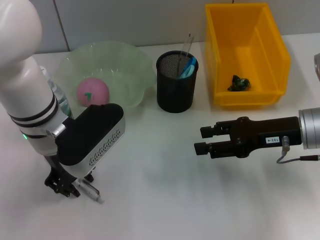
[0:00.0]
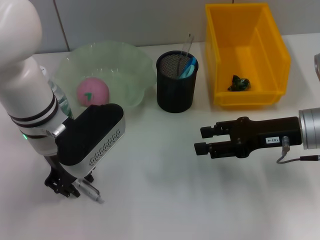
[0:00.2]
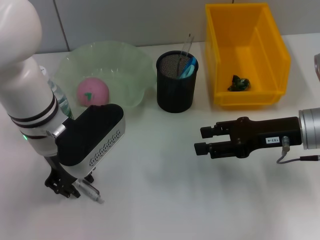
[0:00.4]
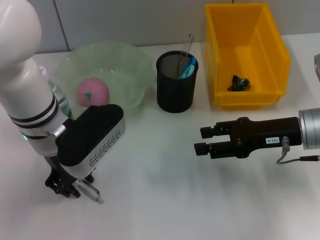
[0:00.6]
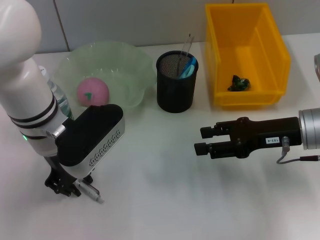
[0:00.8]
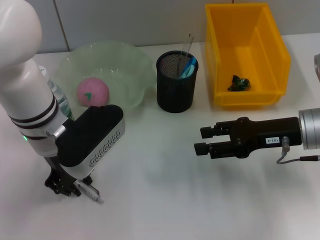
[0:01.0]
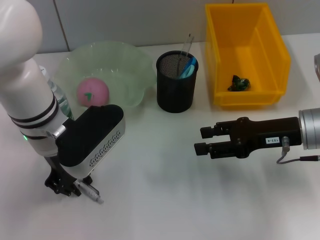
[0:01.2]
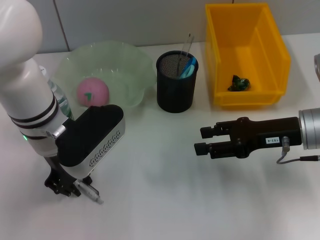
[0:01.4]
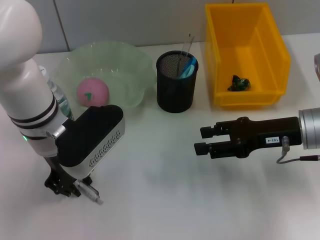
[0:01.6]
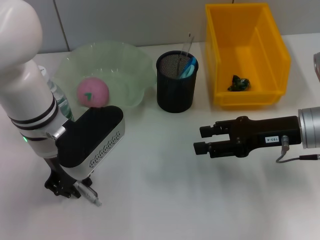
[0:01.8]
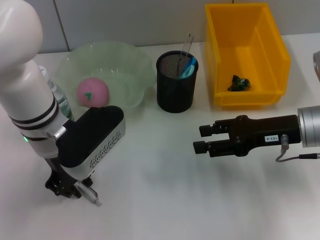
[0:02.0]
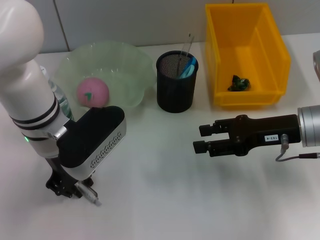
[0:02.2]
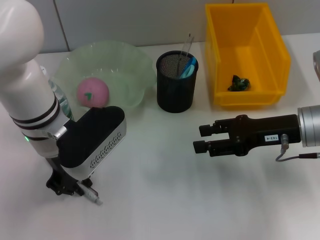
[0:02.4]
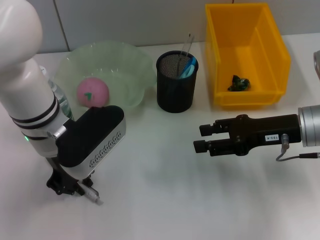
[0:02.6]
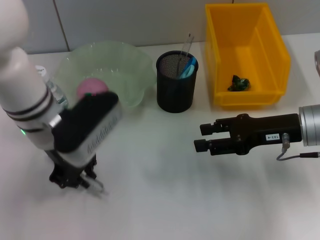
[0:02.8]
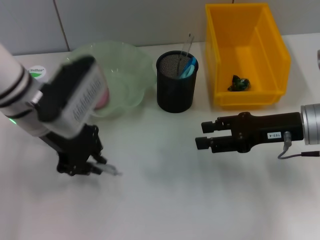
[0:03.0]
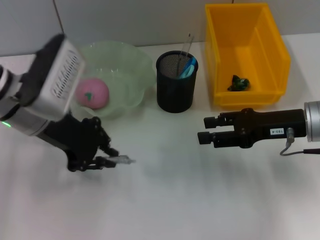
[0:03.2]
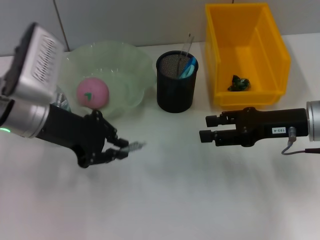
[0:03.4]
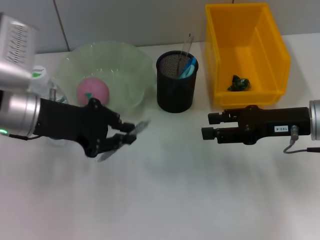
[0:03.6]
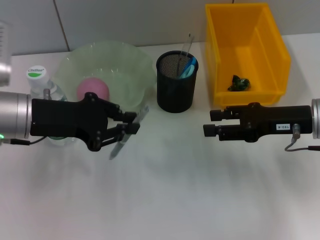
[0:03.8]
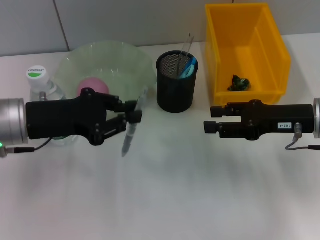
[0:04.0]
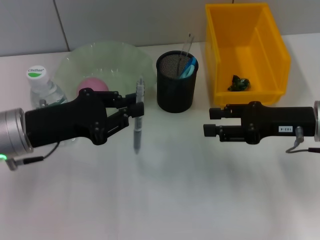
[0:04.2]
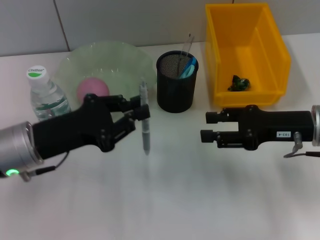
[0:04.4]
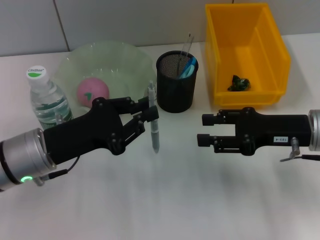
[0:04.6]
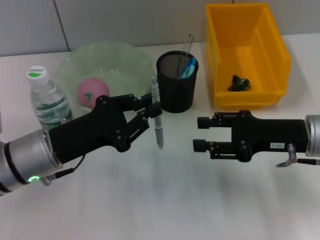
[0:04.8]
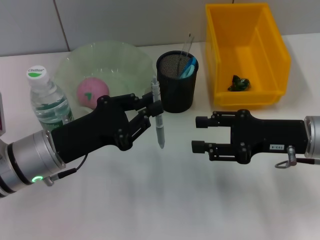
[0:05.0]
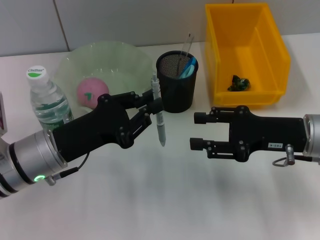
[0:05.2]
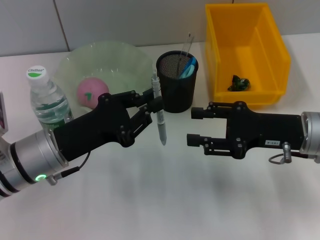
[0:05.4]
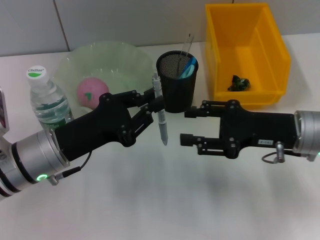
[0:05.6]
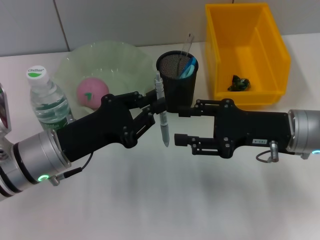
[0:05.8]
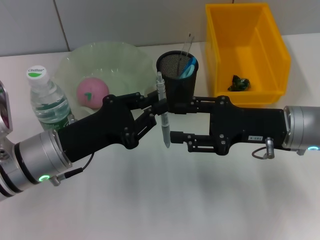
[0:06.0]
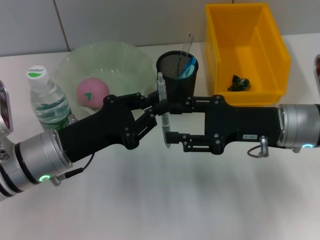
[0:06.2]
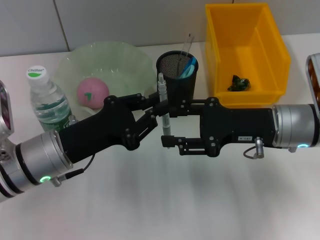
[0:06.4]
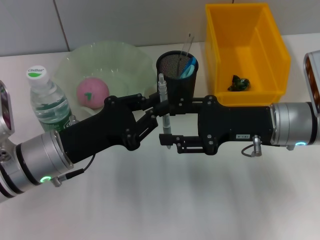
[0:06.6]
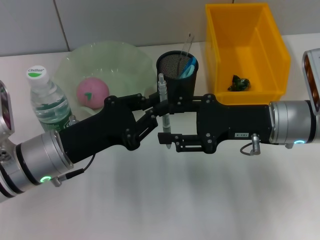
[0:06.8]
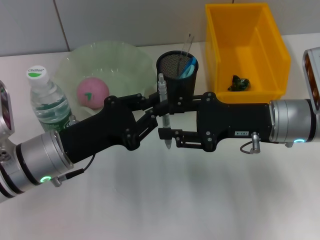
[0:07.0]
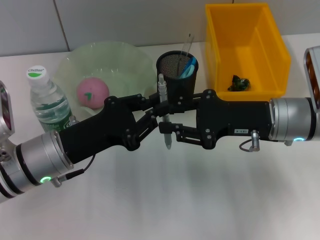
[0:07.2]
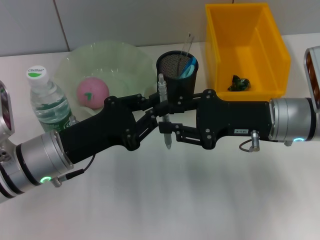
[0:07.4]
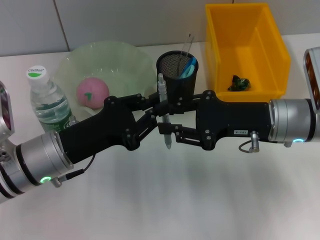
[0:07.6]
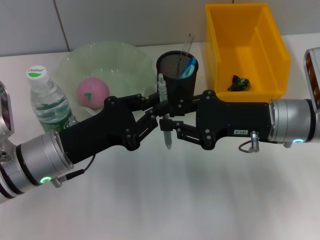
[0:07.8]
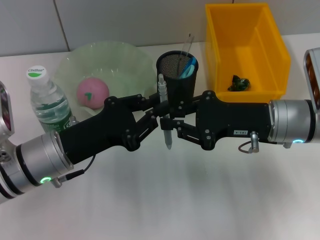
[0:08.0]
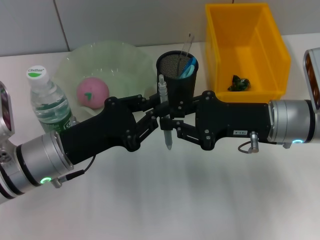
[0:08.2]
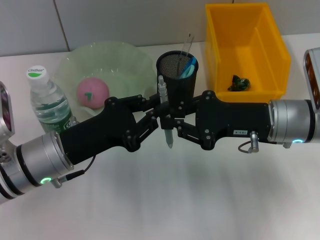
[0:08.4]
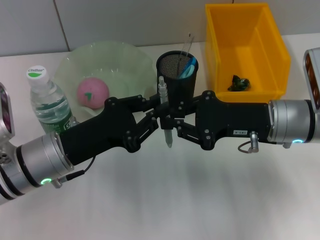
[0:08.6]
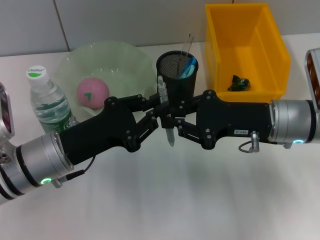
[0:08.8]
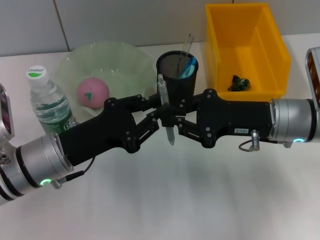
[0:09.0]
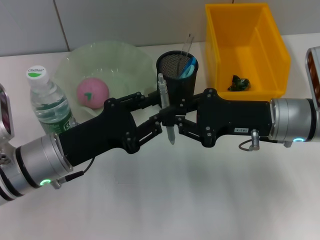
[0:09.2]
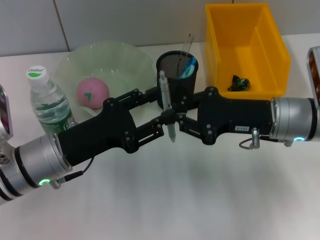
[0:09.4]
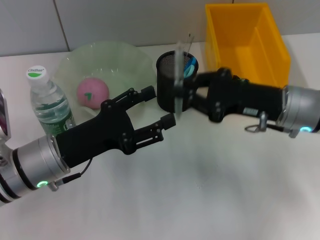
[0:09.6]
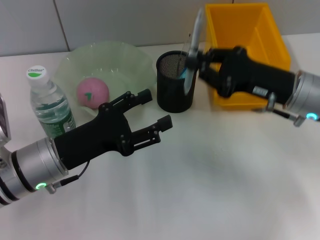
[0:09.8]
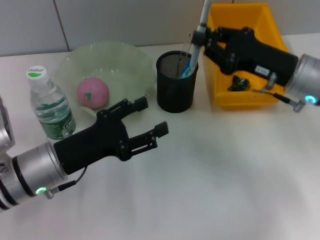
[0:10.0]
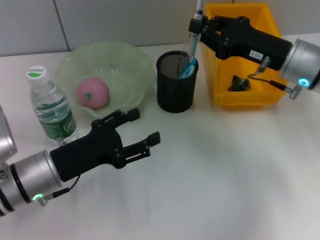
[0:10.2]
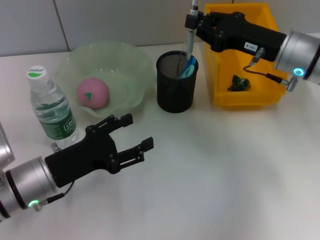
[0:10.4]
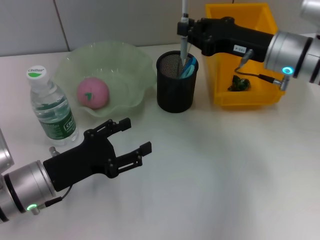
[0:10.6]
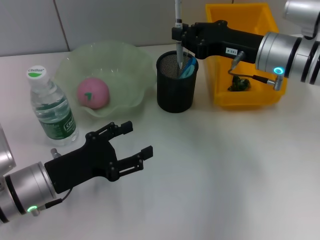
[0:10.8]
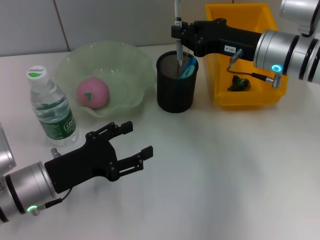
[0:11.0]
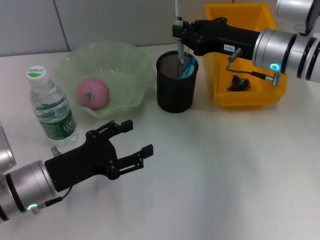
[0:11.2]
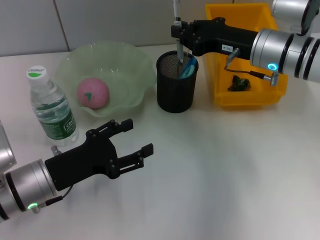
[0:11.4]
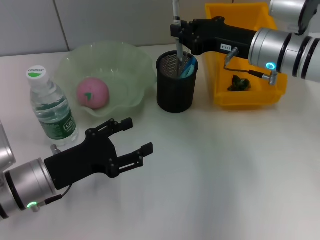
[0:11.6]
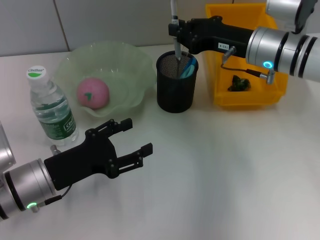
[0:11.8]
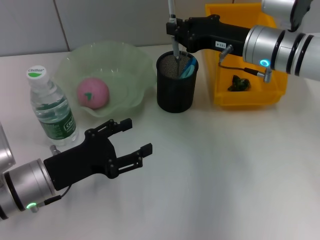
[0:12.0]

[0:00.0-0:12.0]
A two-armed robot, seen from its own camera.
Step, 0:00.0 to 0:02.6: Grab the gray spring-action pen with the left hand.
Step, 0:02.8 to 0:09.2: Pass the gray spring-action pen from the left hand to the right hand.
0:00.0 to 0:01.6: Both grippers stay about where they are.
0:03.0 to 0:04.4: The left gripper shifts approximately 10 cm backward and downward.
0:06.0 to 0:07.6: The grippers move only a little.
0:07.6 to 0:09.0: Both grippers stay about where they are.
0:09.0 to 0:10.4: The left gripper opens up. Meanwhile the right gripper heads forward, covering some 5 cm.
0:10.4 to 0:12.0: There are only small adjustments of the grippers.

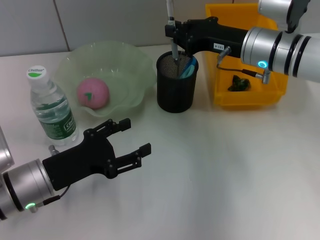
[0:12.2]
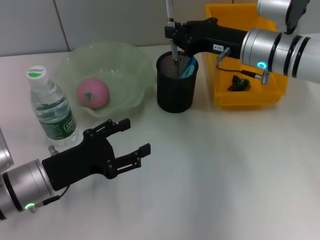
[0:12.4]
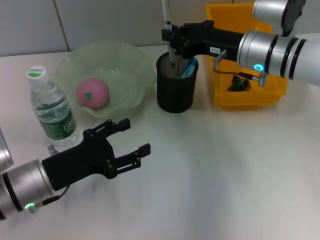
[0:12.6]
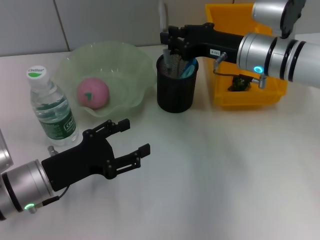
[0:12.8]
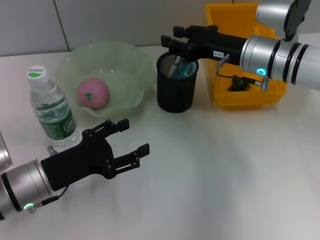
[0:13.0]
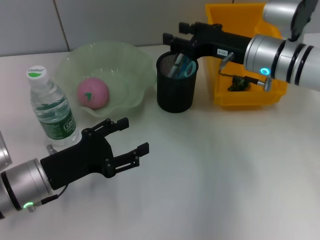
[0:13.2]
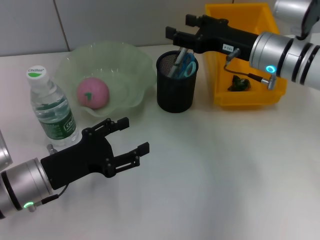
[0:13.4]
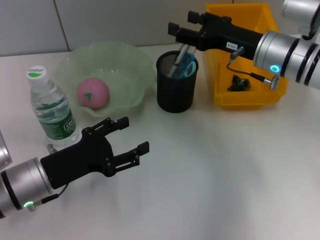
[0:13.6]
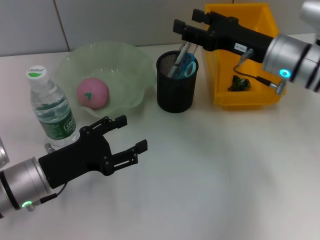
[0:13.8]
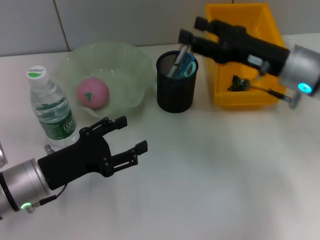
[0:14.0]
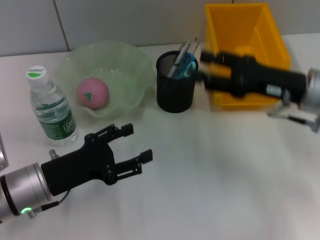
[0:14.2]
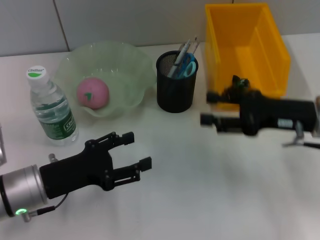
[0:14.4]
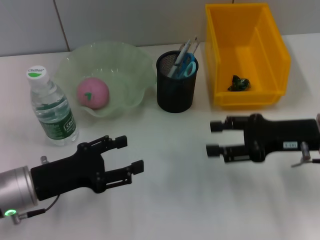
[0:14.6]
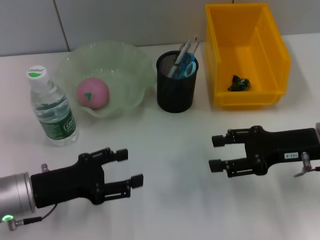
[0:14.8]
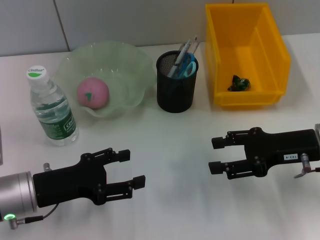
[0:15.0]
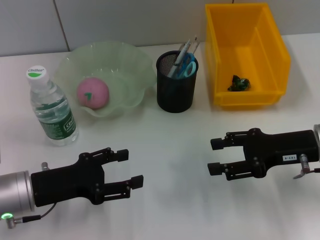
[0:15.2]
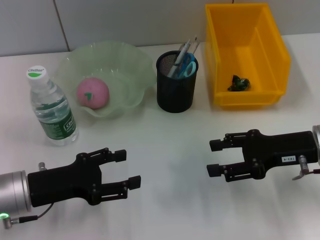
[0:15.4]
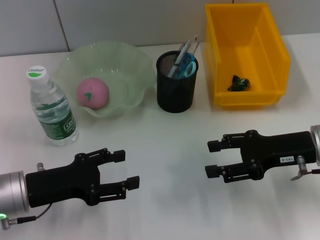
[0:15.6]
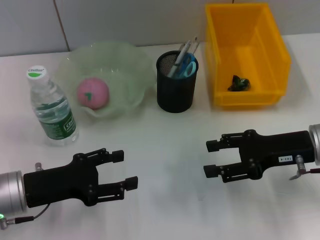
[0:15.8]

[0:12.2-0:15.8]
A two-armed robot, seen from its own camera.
0:12.2 to 0:14.0: The right gripper heads backward, covering approximately 5 cm, and opens.
0:14.0 to 0:15.8: The right gripper heads backward, covering about 5 cm.

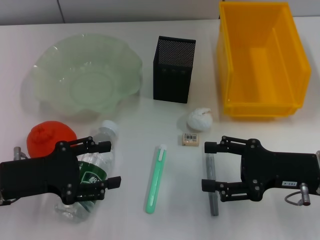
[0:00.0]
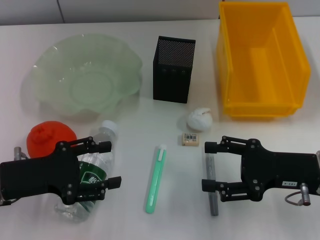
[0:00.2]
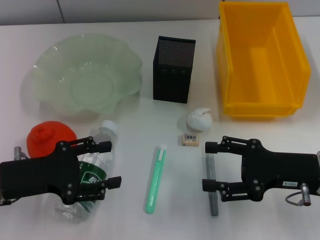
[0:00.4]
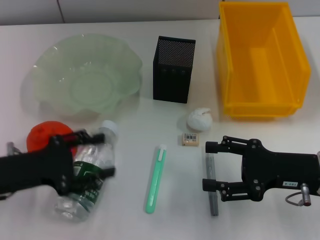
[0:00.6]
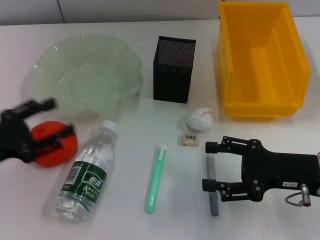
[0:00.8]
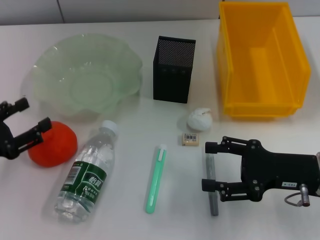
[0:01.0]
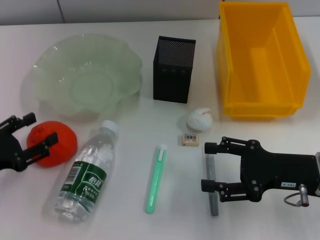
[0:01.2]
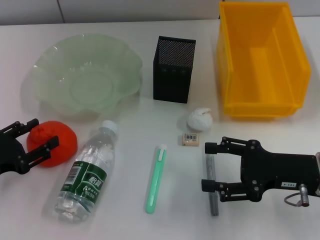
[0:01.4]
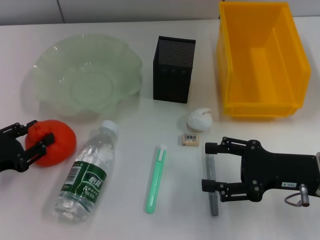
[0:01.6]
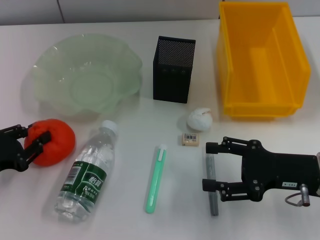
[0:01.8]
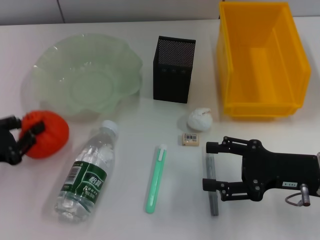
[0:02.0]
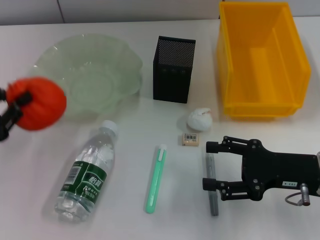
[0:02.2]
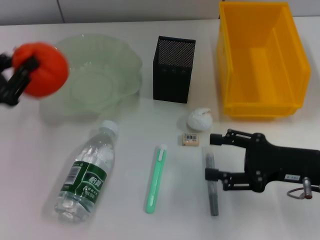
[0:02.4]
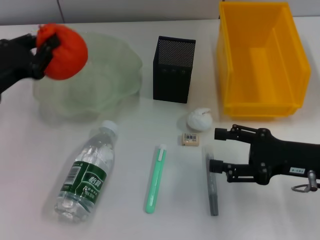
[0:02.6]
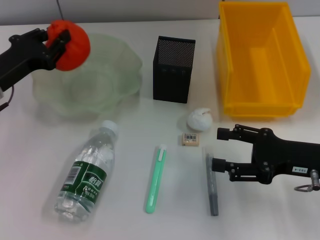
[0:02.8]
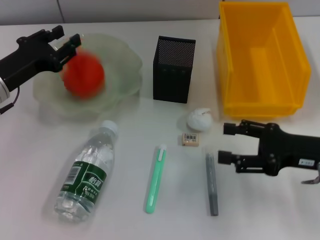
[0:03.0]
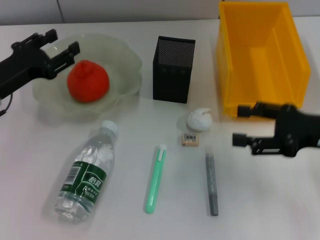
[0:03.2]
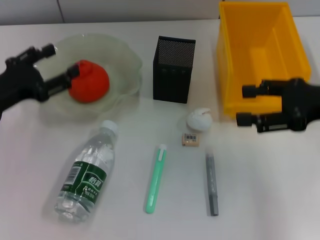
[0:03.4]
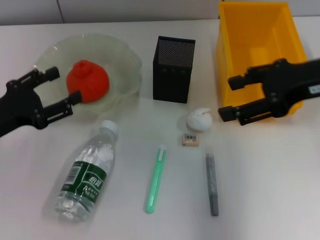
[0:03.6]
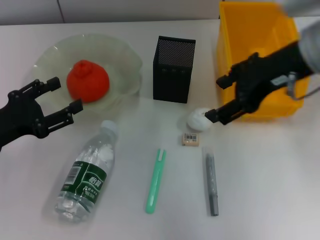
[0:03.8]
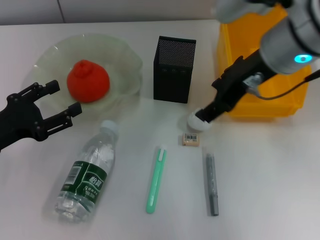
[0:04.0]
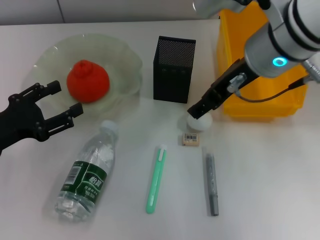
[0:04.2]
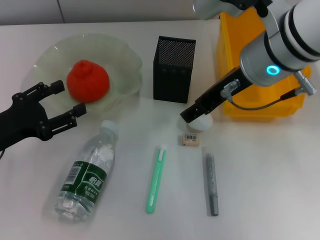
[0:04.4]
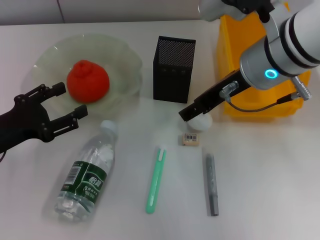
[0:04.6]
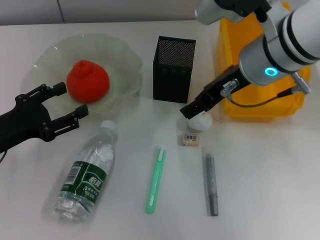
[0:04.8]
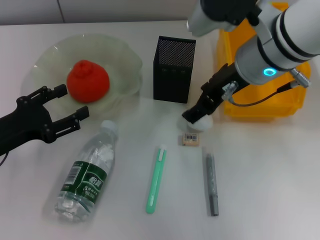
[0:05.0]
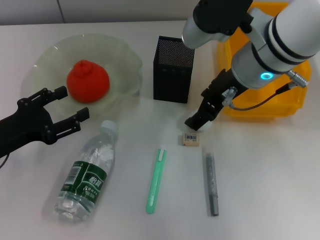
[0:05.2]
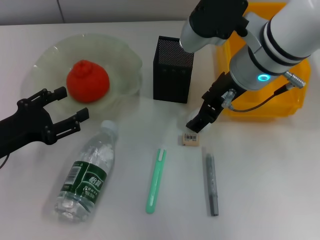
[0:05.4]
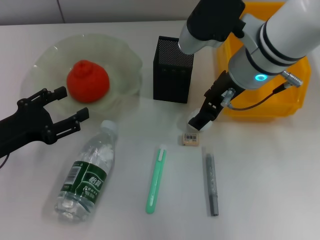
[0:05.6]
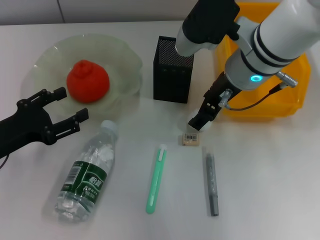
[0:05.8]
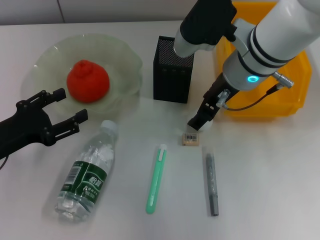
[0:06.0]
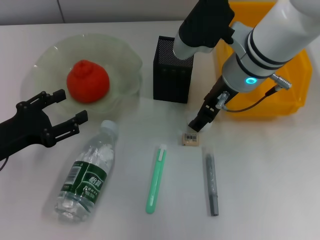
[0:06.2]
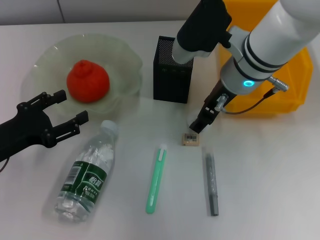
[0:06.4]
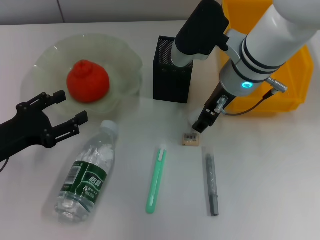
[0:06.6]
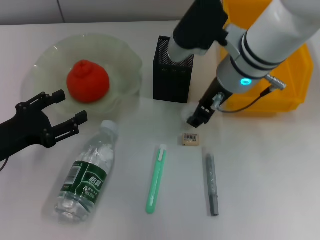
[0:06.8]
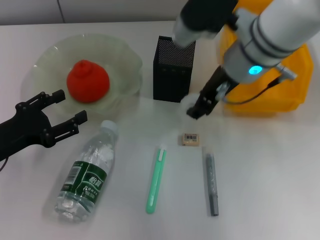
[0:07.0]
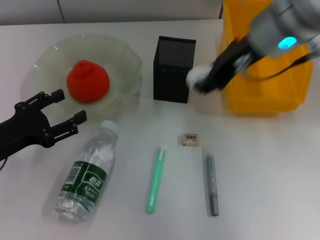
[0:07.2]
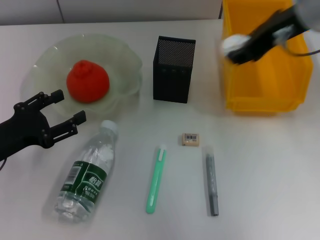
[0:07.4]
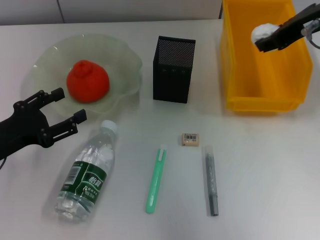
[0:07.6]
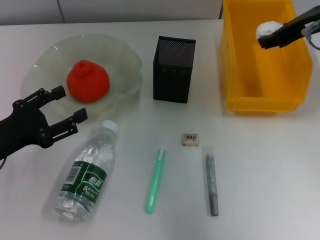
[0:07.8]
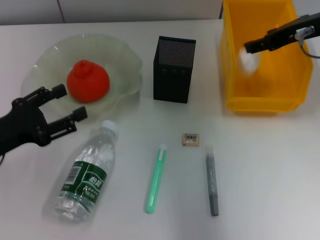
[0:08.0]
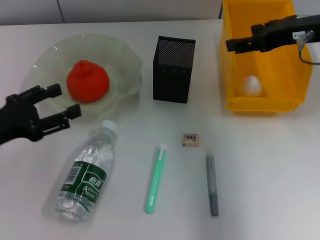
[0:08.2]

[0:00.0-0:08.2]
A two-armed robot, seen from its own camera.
Step, 0:00.0 to 0:01.6: Grab the orange with the left hand.
Step, 0:01.8 to 0:03.2: Place the orange into the fruit bowl with the left hand.
Step, 0:03.4 to 0:06.2: Grab the paper ball with the right hand.
Step, 0:06.4 to 0:08.2: Place the paper ball into the trash can with the right hand.
0:00.0 to 0:01.6: The left gripper is displaced to the left by approximately 5 cm.
0:01.6 to 0:03.2: The left gripper moves forward, approximately 10 cm, and closes up. The right gripper heads upward, covering roughly 5 cm.
0:03.2 to 0:05.0: The left gripper heads backward, covering approximately 5 cm, and opens up. The right gripper heads to the left, upward and forward, covering roughly 20 cm.
0:05.0 to 0:06.6: The right gripper heads downward, covering roughly 5 cm.
0:06.6 to 0:08.2: The right gripper heads to the right and upward, covering approximately 15 cm, and closes and opens again.
